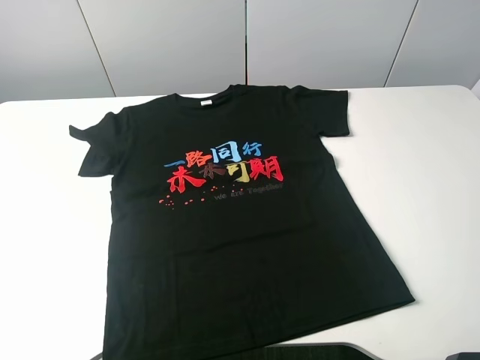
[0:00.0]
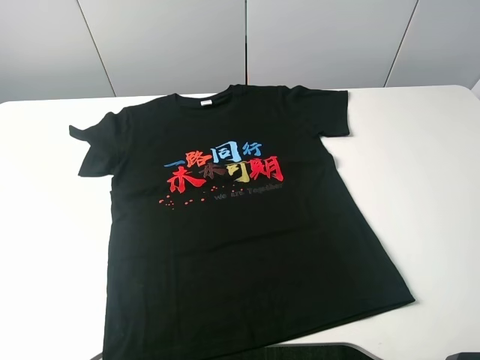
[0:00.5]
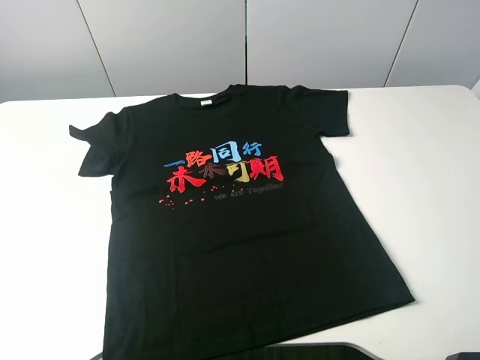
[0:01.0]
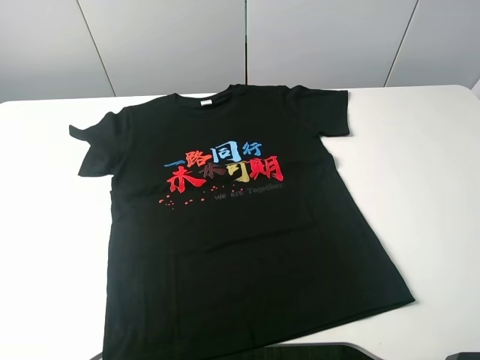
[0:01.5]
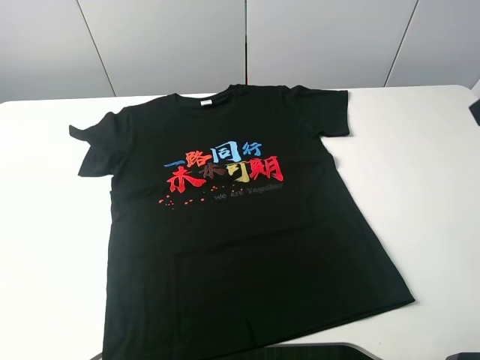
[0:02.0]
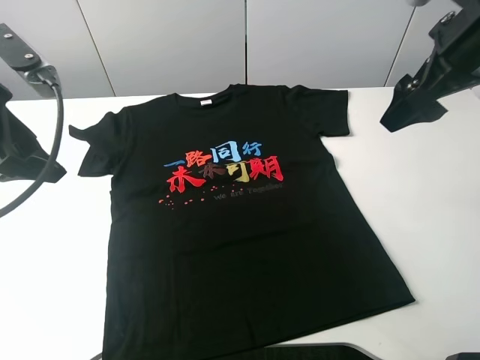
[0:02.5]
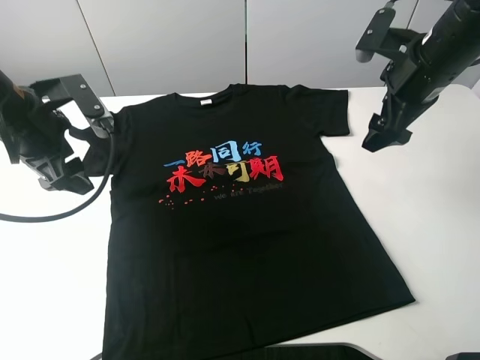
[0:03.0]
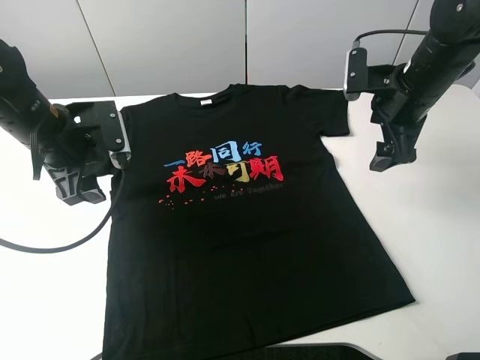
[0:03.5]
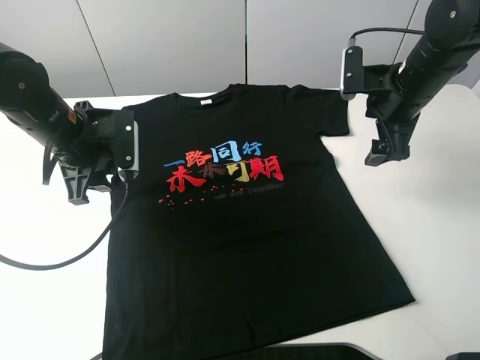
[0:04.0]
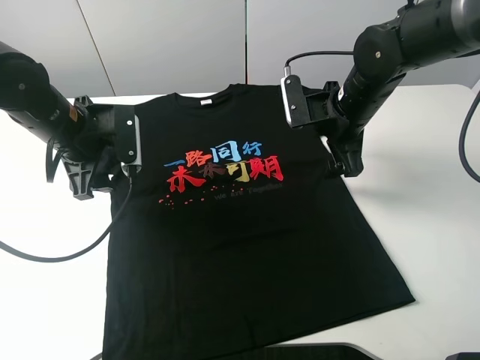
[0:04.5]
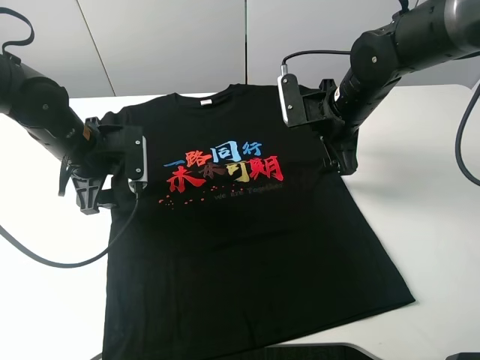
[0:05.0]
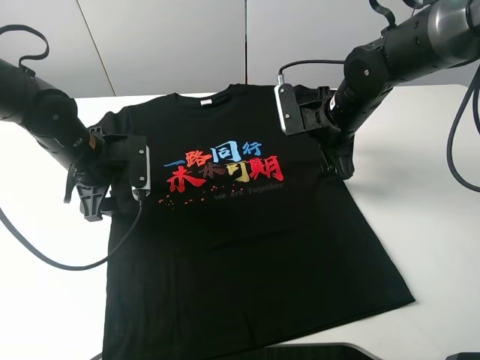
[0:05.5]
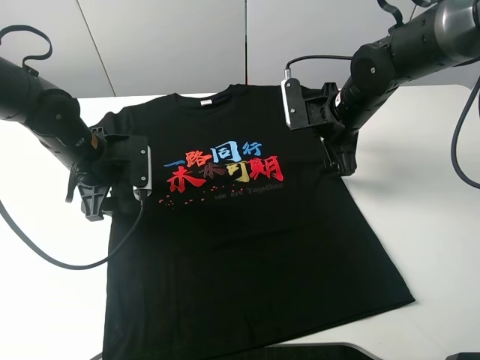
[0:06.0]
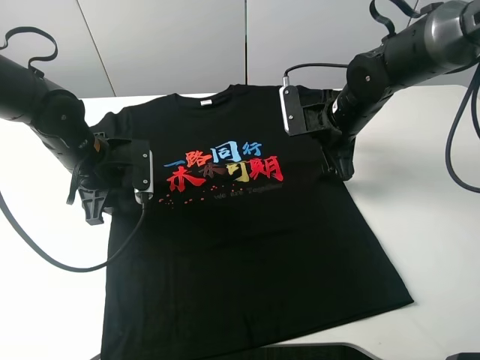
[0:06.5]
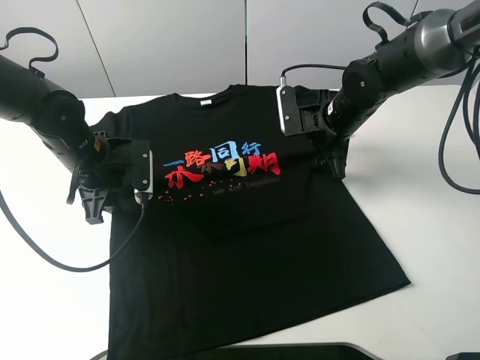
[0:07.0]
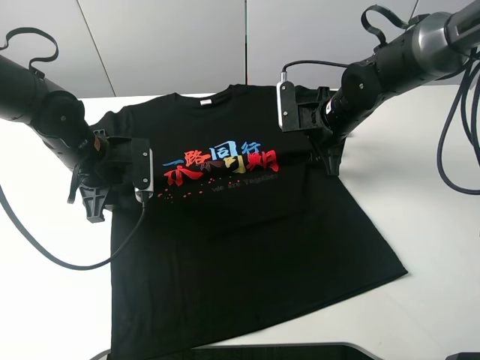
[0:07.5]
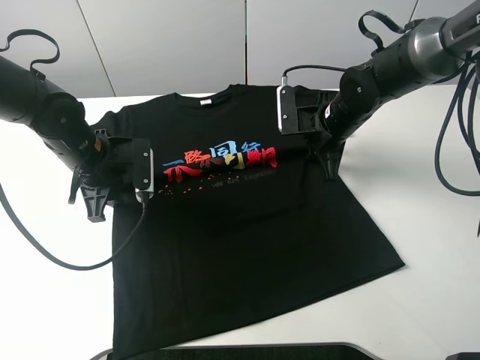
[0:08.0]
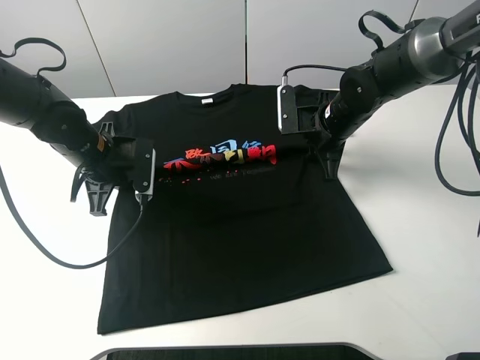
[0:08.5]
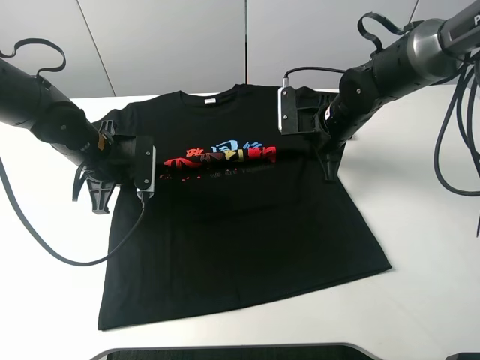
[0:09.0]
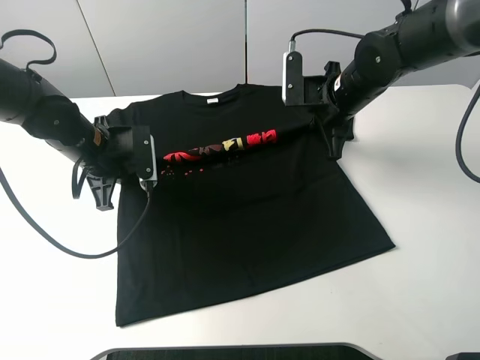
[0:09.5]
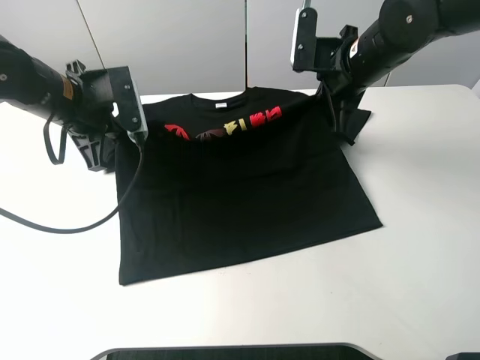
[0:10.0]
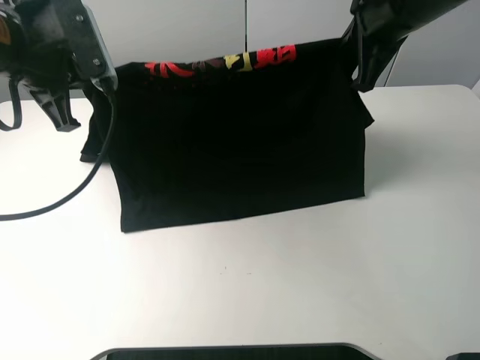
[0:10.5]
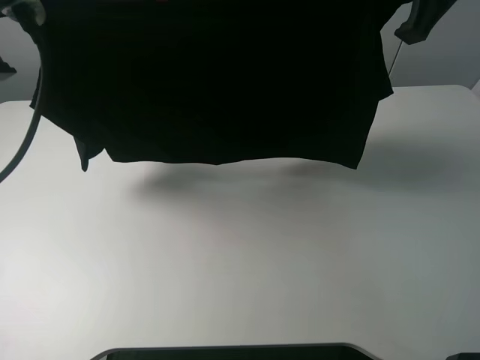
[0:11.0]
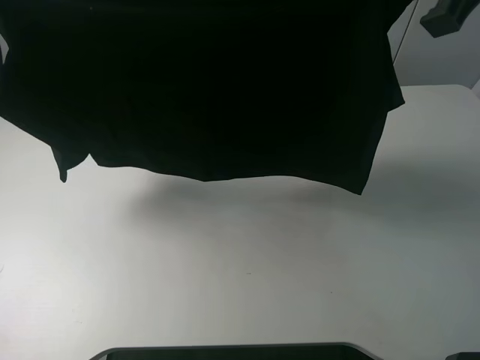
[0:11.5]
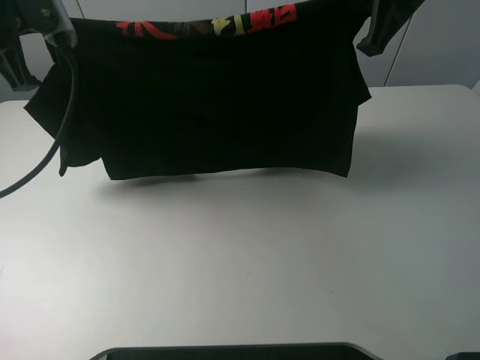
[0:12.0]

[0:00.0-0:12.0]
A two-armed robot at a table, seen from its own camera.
Task of the whole recording: fold the clothes on the table.
Step, 0:00.0 to 0:08.5: Lift the black T-shirt with the left gripper.
0:02.0 to 0:04.0: The left gripper moves forward, downward and to the right, some 25 cm. Meanwhile the right gripper travels forward and downward by roughly 25 cm.
0:04.0 to 0:06.0: The left gripper goes roughly 5 cm downward. Meanwhile the right gripper heads to the left, covering about 5 cm.
0:06.0 to 0:08.0: The left gripper closes. Meanwhile the right gripper closes its fingers.
0:08.0 to 0:10.0: The grippers both shift upward by approximately 10 cm. The left gripper closes its fingers.
0:10.0 to 0:12.0: Both grippers travel together upward, about 10 cm.

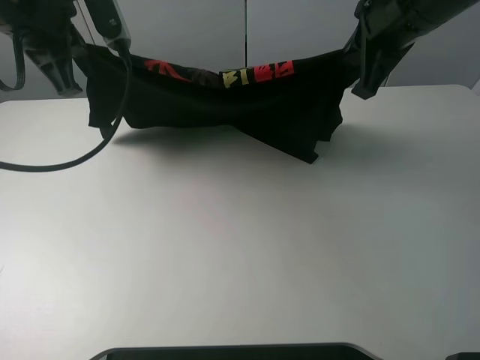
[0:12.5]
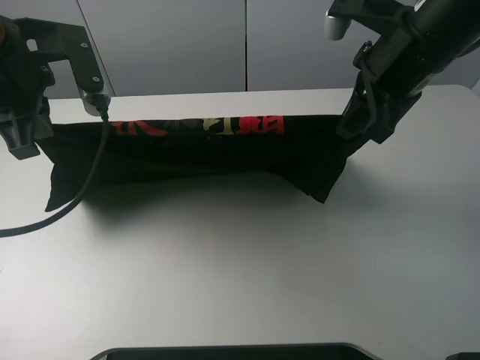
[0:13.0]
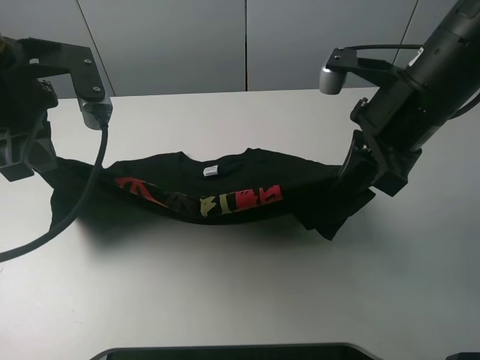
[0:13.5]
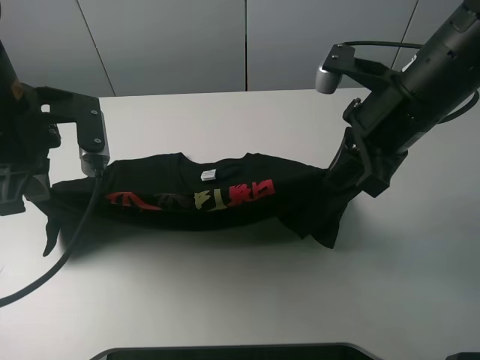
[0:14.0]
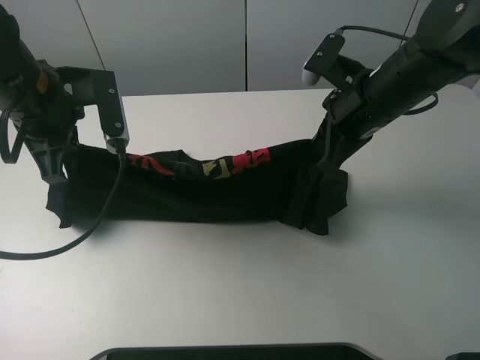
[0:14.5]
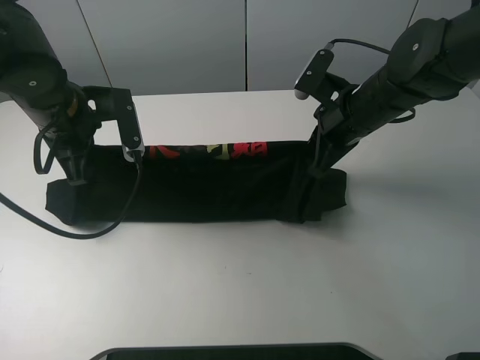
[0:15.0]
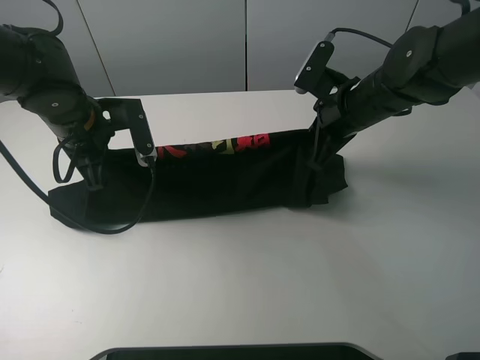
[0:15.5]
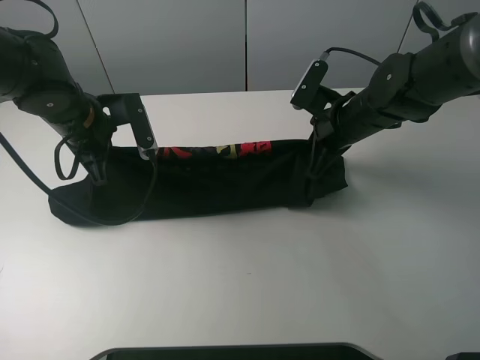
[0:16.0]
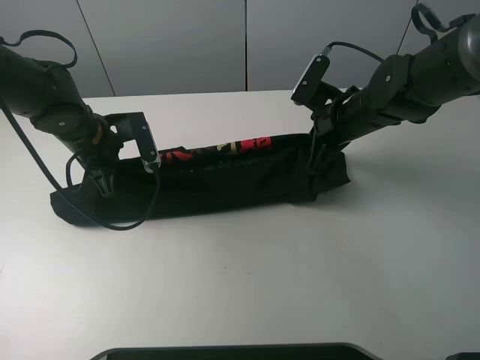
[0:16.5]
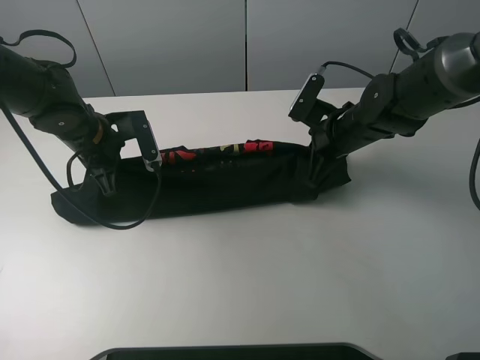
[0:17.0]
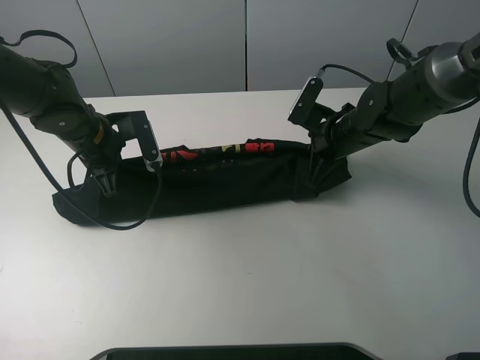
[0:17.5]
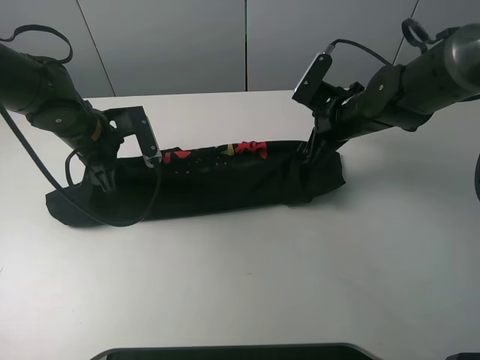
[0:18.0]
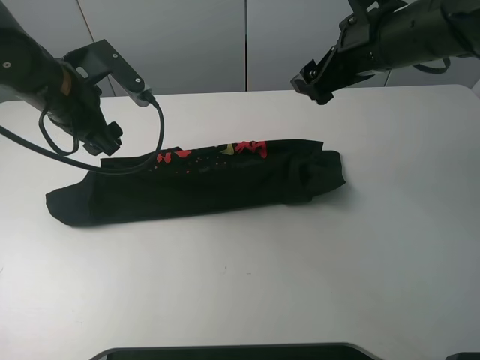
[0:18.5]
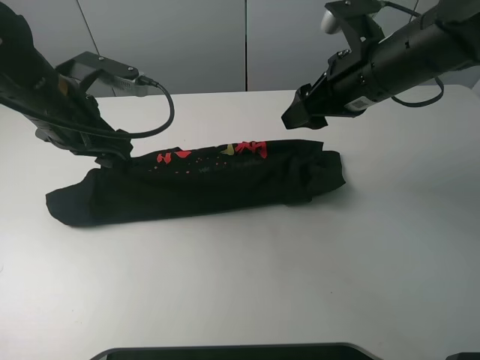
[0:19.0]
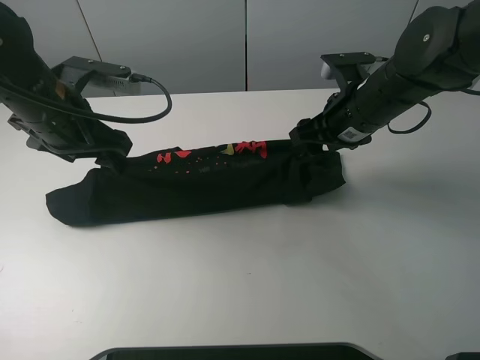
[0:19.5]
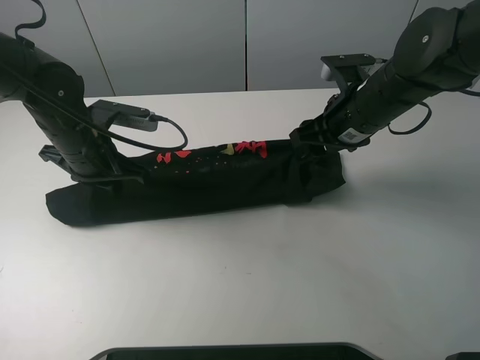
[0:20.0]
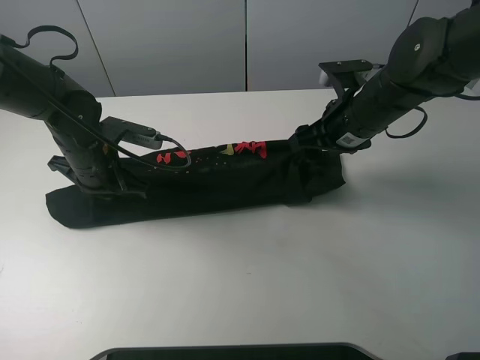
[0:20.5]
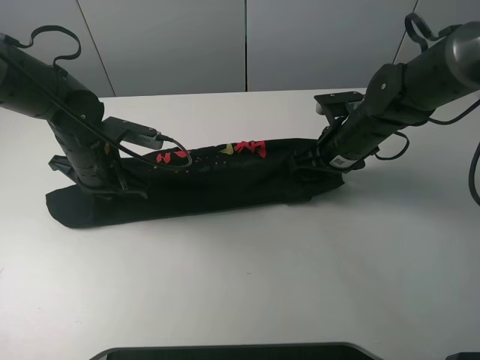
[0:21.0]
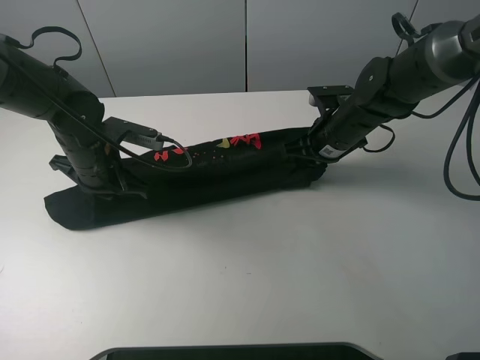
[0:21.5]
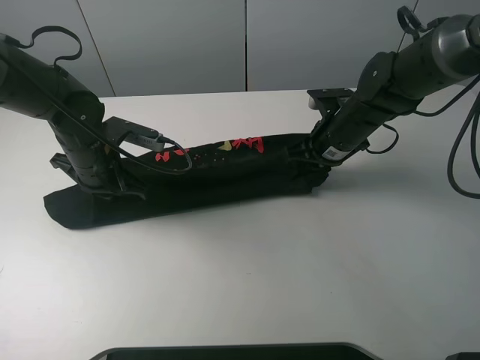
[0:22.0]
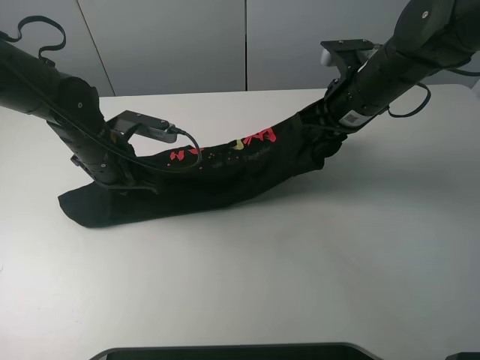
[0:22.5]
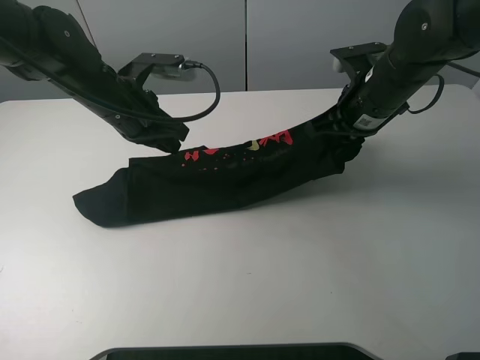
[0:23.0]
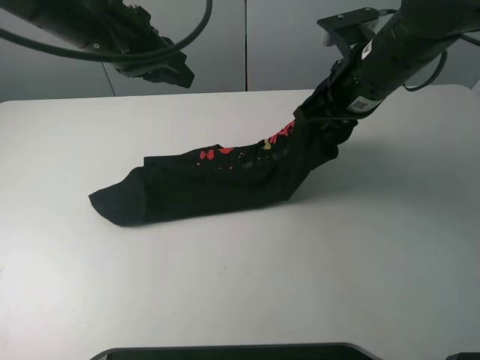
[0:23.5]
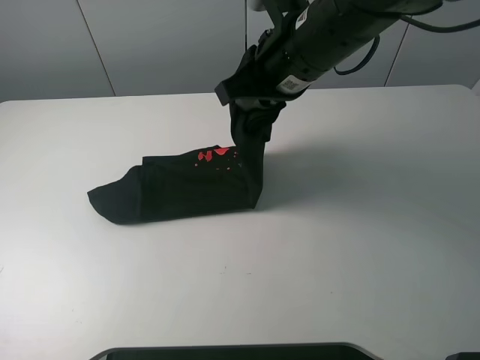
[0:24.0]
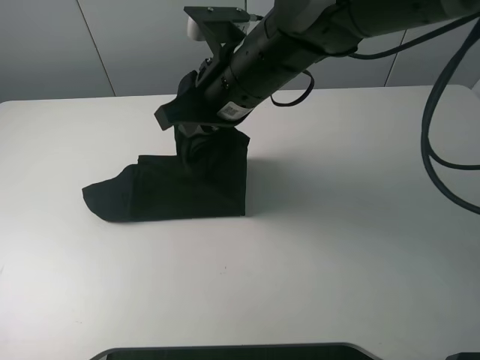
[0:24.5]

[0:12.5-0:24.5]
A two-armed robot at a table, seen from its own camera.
Task of the whole recording: fold the clothes on the table.
Step, 0:12.5 to 0:18.0: Fold the black T-shirt downward with the left gripper.
Step, 0:18.5 to 0:21.5: Grasp the black T-shirt with the right gripper.
0:12.5 to 0:14.5: The grippers both shift downward by roughly 10 cm.
0:14.5 to 0:16.5: The left gripper heads downward and forward, covering about 10 cm. Meanwhile the right gripper goes some 5 cm downward.
0:16.5 to 0:18.5: The two grippers go some 10 cm upward. The right gripper opens up. Meanwhile the left gripper opens up.
0:18.5 to 0:20.5: The two grippers go approximately 10 cm downward. The left gripper closes up.
0:20.5 to 0:22.5: The right gripper travels downward and back again, about 5 cm each way, and closes.
0:22.5 to 0:24.5: The left gripper shifts roughly 25 cm upward. Meanwhile the right gripper is displaced to the left by roughly 15 cm.

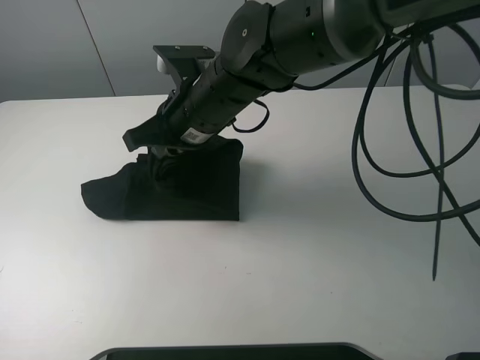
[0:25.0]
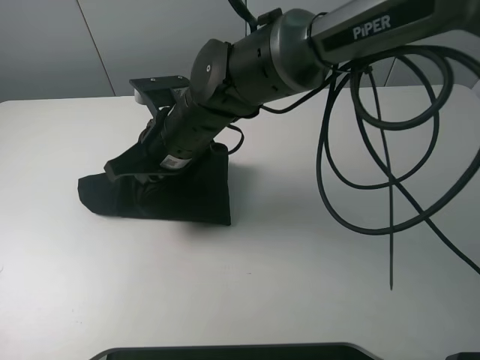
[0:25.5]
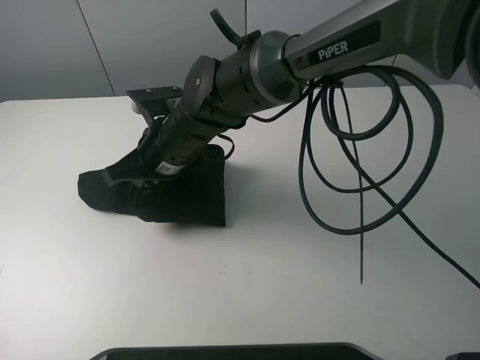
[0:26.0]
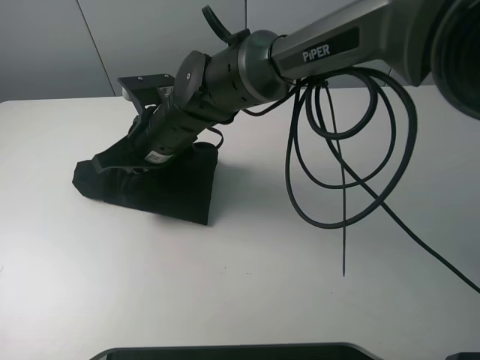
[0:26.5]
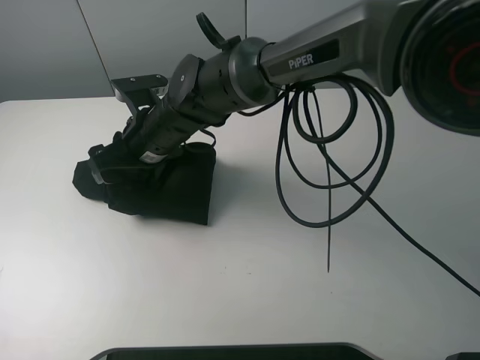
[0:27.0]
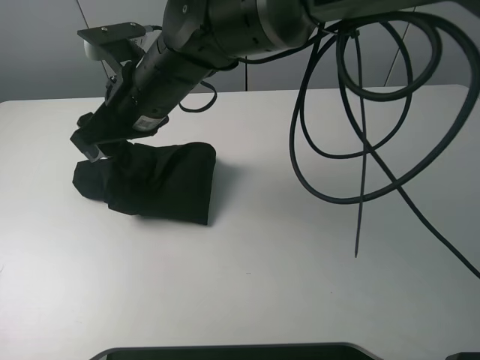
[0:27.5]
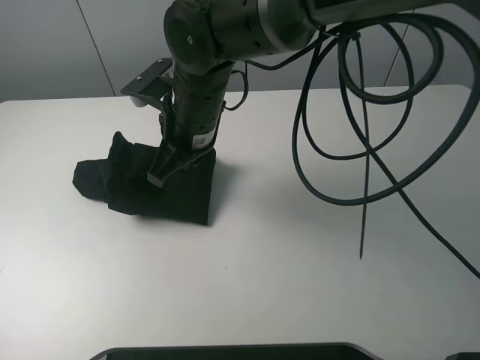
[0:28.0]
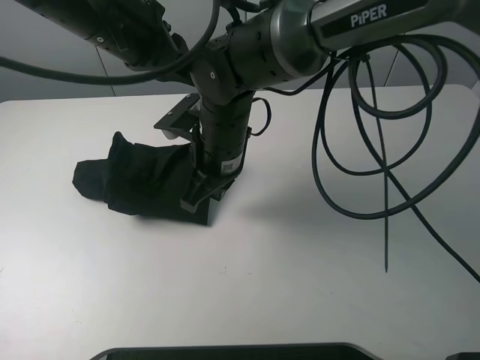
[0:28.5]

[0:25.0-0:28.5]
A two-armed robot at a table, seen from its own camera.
Task of the whole recording: fold the clothes on the table.
Step, 0:25.0 to 0:27.0: Fold the black T-shirt from right to left with right gripper.
0:25.0 to 0:27.0: The right gripper is displaced to the left and downward by about 10 cm, and opens its fingers.
0:27.0 to 0:28.5: The left gripper heads downward and forward, covering approximately 15 cm, while the right gripper is displaced to the right by about 10 cm, and closes.
